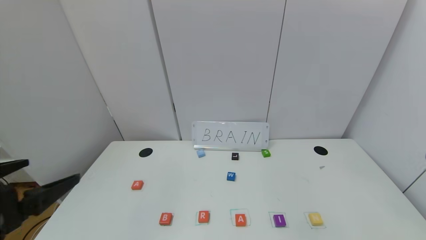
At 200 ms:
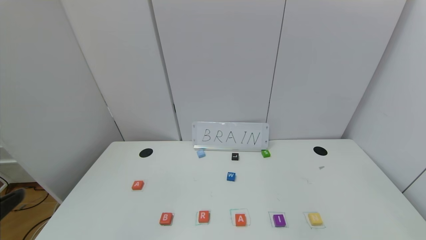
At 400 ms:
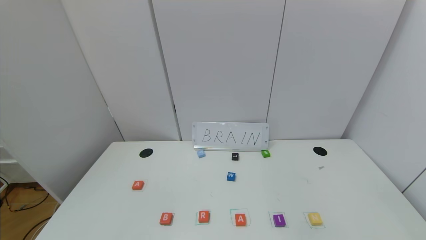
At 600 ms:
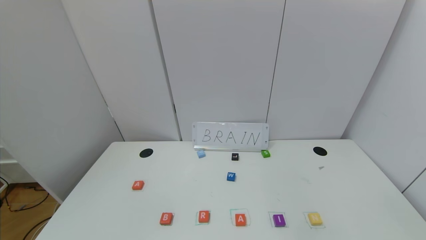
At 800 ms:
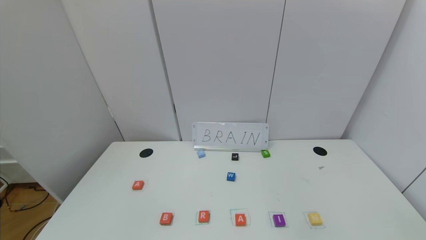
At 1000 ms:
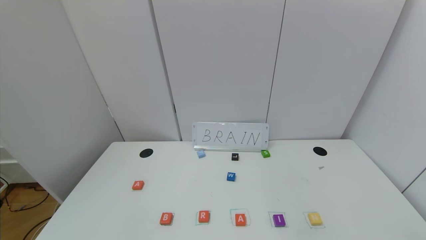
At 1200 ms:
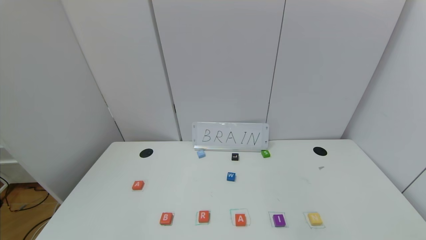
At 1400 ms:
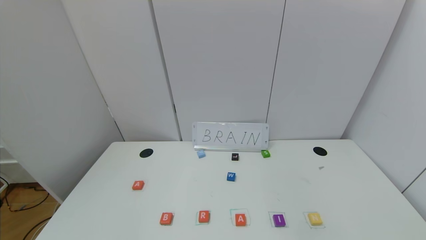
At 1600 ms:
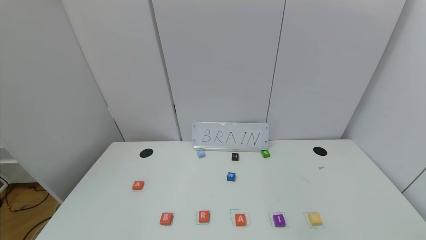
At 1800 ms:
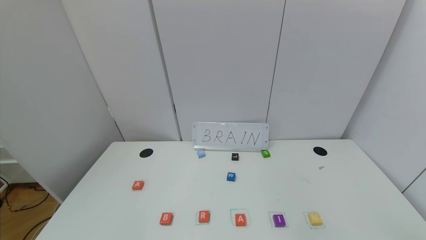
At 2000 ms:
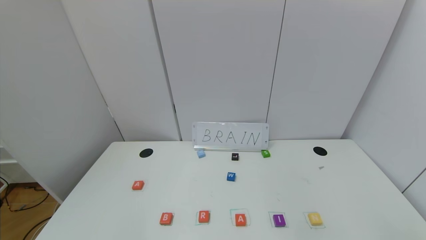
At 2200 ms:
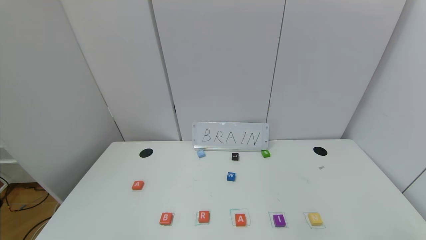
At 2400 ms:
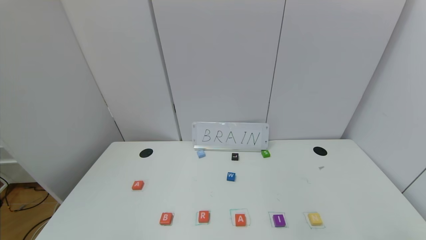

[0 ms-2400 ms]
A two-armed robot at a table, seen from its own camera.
Task of the whole recording: use the gripper to find blocks with the letters b, a, a, and i on the table and arrange them into BAAI, then find r and N and turn the arranged baai into brian.
0 ms to 1200 ms: The left gripper travels backward by approximately 20 cm.

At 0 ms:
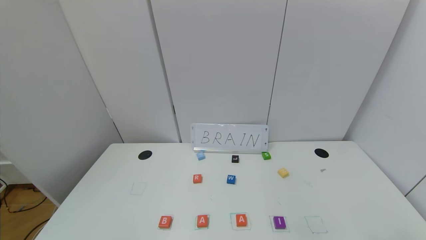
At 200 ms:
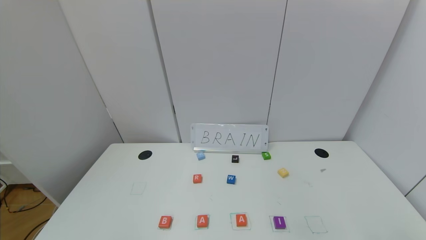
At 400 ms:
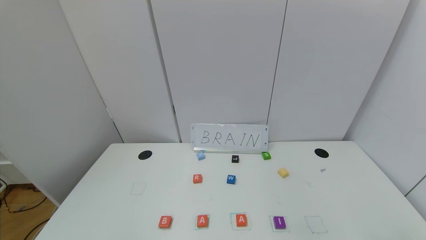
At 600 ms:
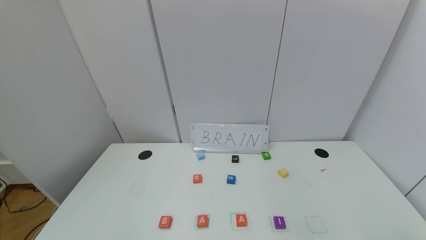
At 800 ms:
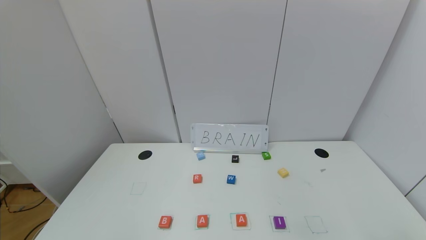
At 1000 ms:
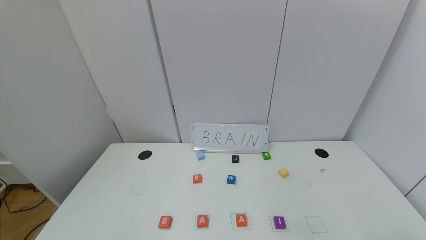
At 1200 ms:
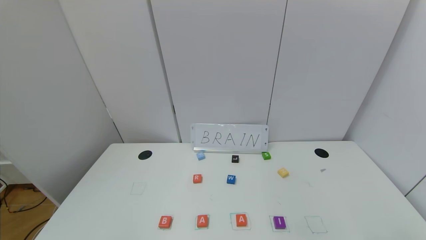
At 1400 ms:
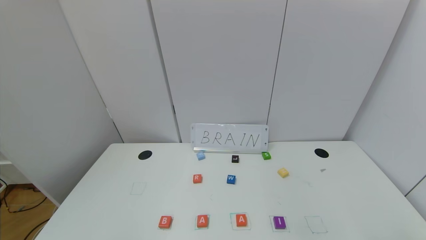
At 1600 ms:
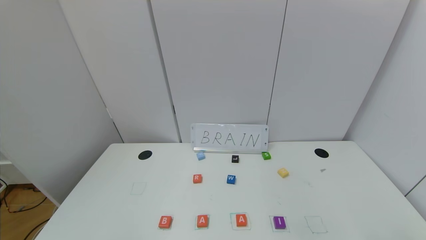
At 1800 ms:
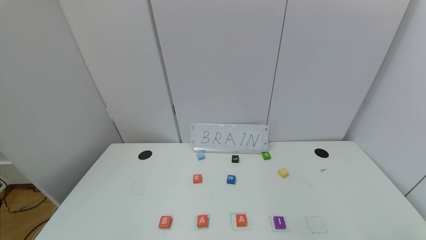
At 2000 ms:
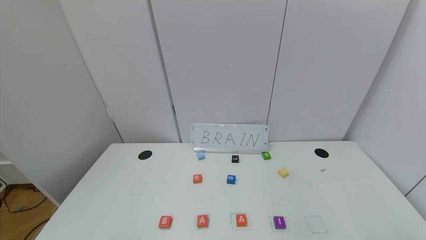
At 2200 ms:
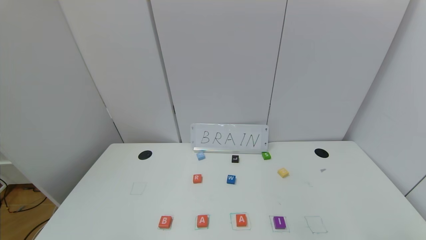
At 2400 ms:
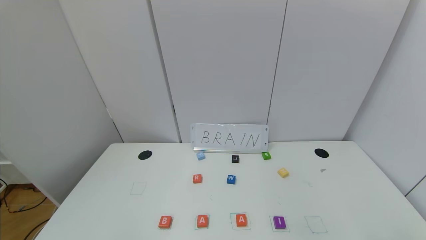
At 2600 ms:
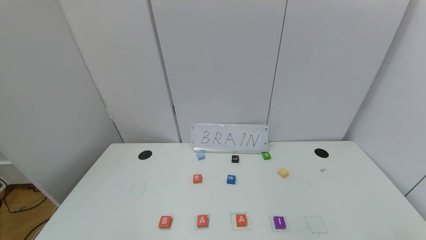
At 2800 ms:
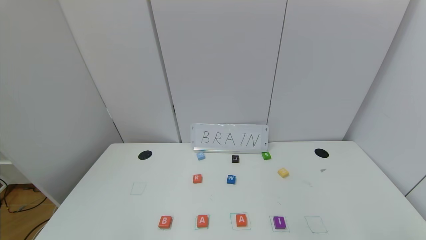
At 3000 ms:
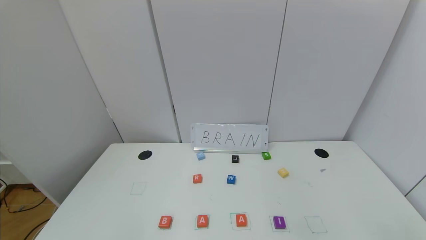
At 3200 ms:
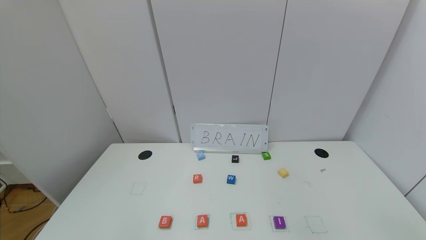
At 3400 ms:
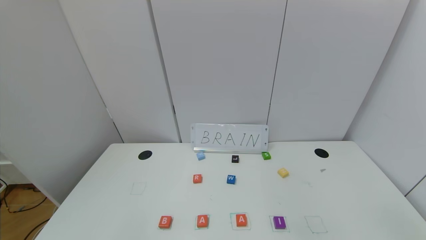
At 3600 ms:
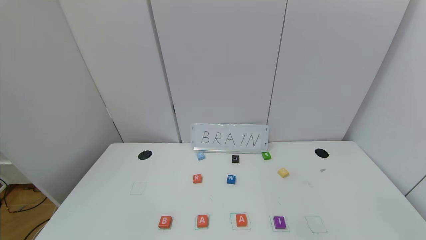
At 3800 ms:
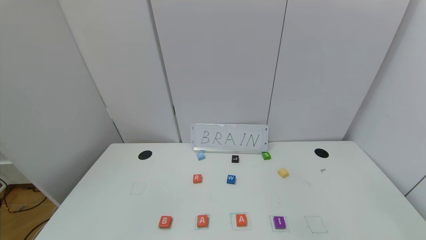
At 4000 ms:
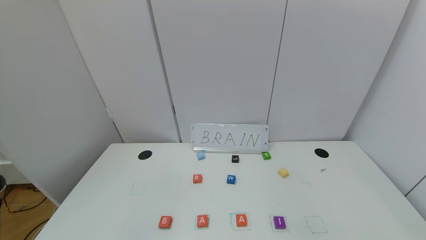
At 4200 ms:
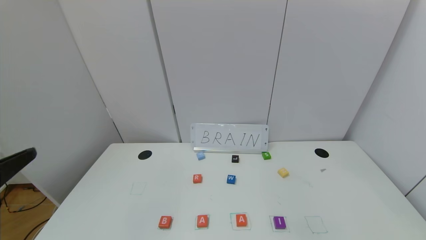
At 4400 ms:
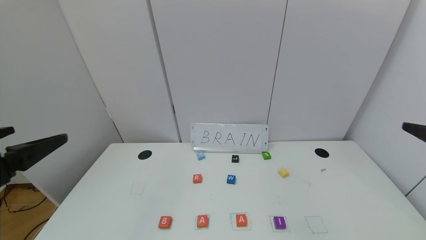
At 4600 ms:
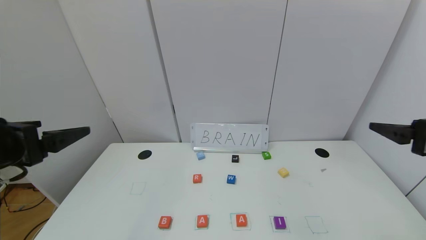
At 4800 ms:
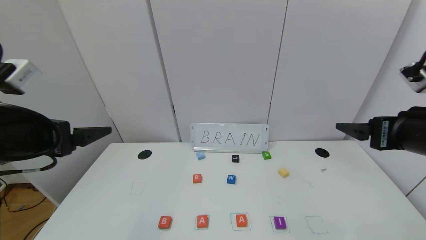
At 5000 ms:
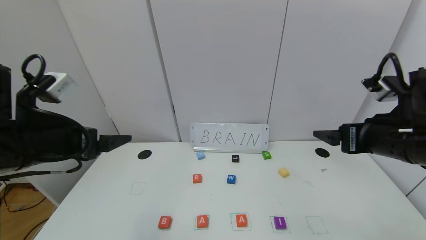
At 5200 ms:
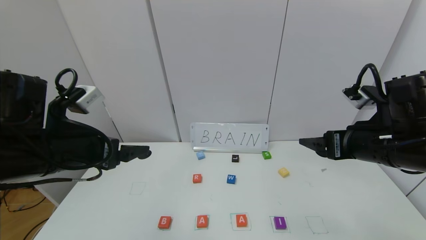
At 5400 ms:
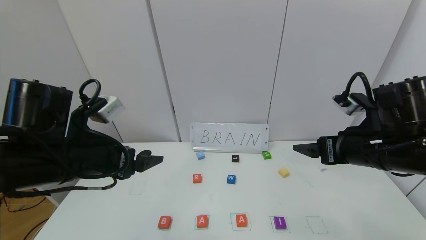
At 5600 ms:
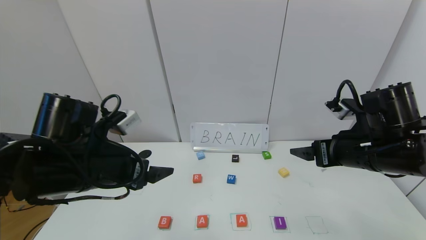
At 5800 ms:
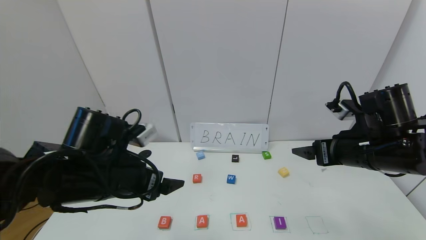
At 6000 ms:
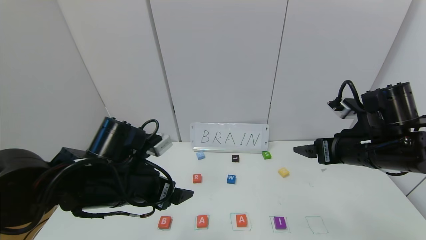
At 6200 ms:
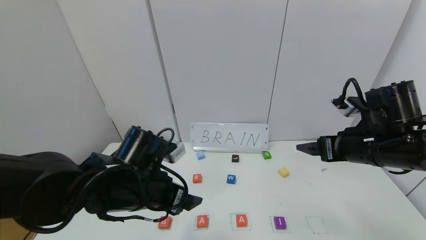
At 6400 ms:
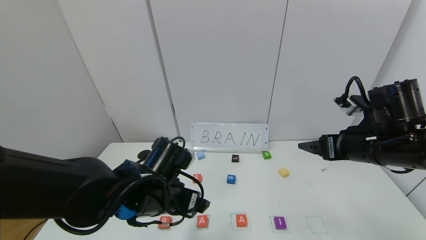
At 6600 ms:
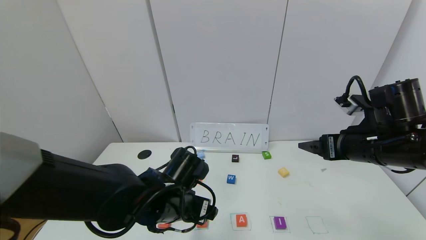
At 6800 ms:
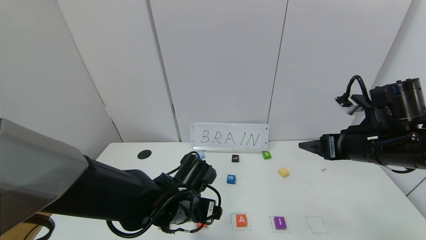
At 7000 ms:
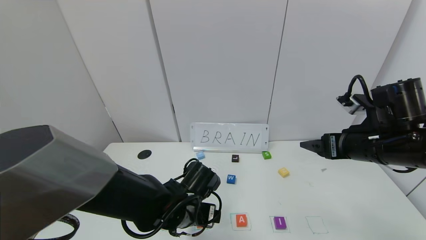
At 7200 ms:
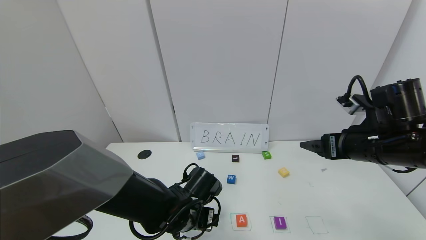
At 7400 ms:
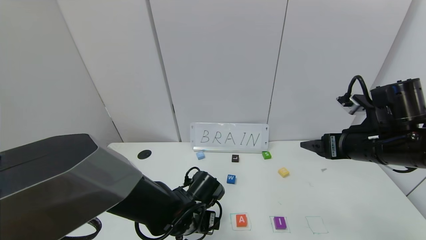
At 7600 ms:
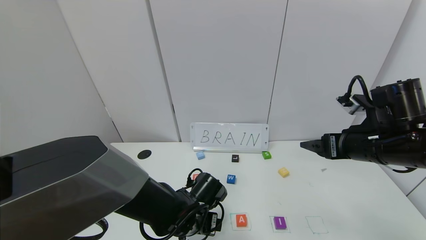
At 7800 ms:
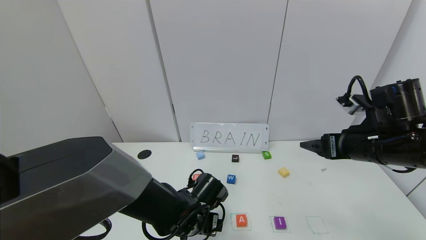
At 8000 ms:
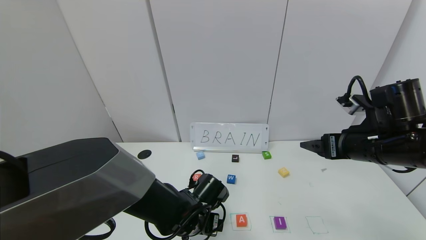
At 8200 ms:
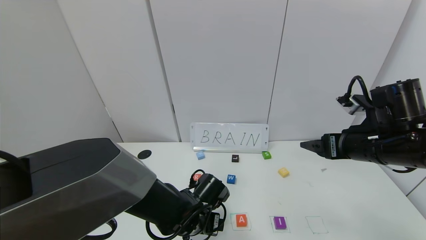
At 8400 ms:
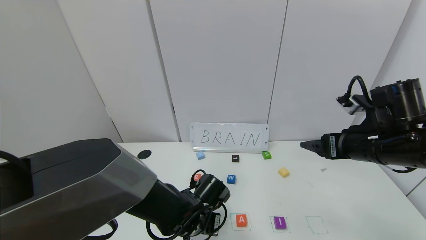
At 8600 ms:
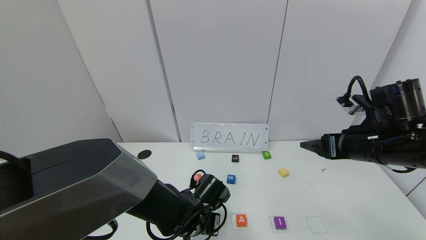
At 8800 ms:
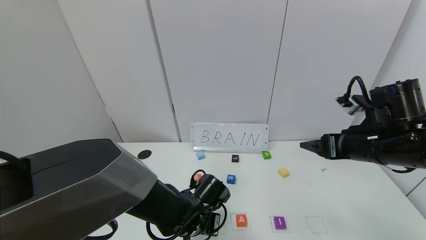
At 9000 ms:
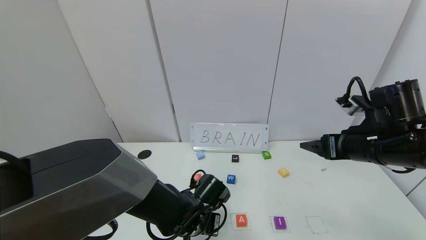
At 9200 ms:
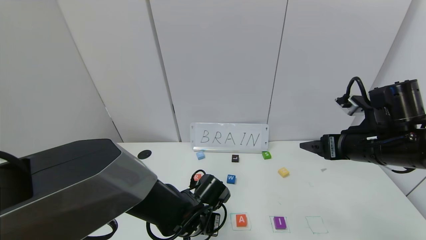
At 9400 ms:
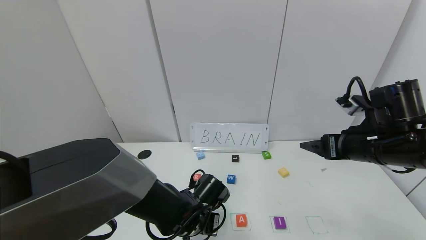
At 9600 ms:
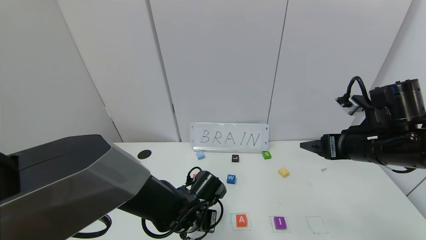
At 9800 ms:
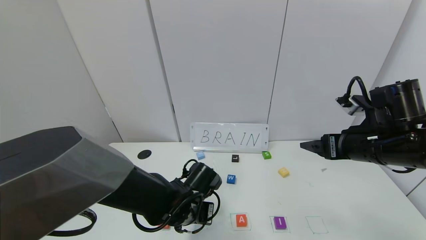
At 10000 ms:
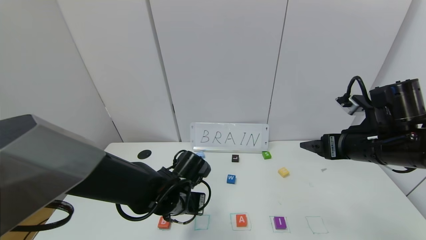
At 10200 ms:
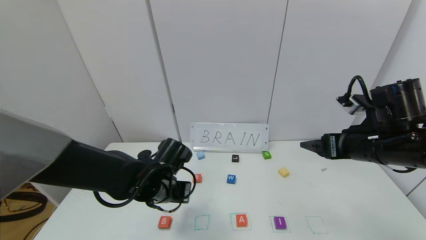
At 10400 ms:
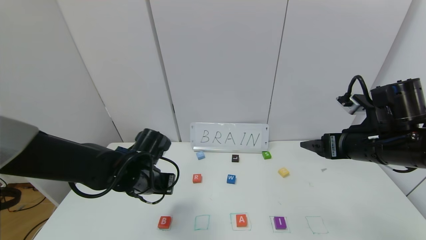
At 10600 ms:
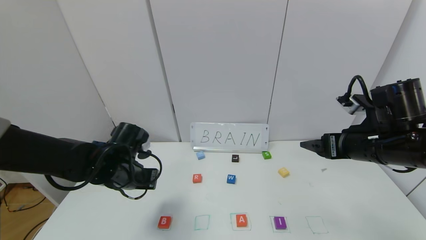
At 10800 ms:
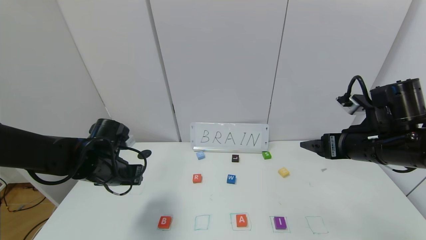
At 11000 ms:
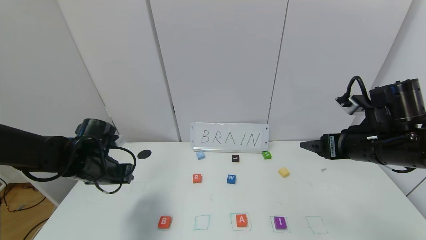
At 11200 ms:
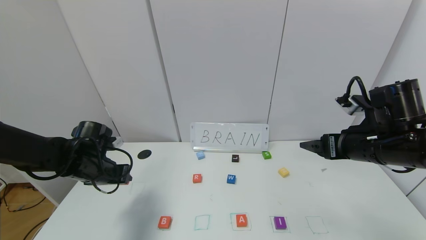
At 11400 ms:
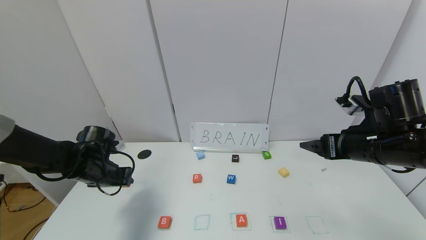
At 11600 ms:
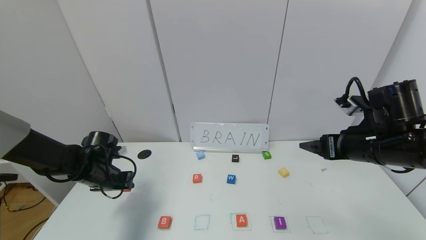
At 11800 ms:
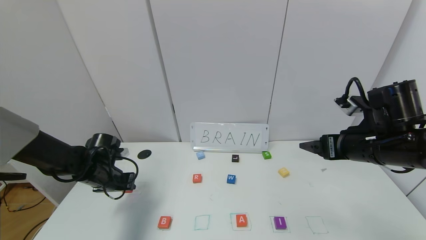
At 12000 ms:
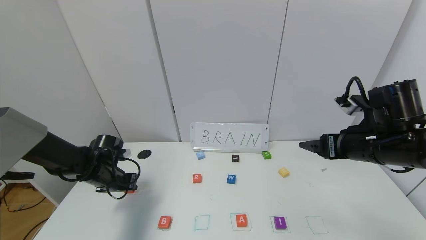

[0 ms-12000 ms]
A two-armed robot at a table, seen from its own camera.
Task of the whole recording: use the gripper to find blocks with the letters b, a, a, and i on the table and arrange them into BAAI, then find r and N and turn the arranged baai into brian.
0 ms to 1600 ms: Both grippers stay put.
3000 ms to 4400 ms: The left gripper shifts roughly 20 cm upward and forward.
4400 ms to 6000 ms: The left gripper shifts approximately 20 cm to the right, forward and downward, while the right gripper travels forward, to the left and downward by approximately 15 cm.
6000 ms to 7600 ms: The left gripper shifts approximately 15 cm downward and to the right.
7600 ms to 9000 ms: The left gripper closes.
9000 ms to 10400 ms: The left gripper shifts some 15 cm to the left and upward.
10400 ms to 12000 ms: The left gripper moves to the left, forward and downward, approximately 15 cm.

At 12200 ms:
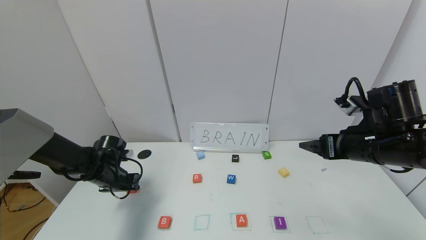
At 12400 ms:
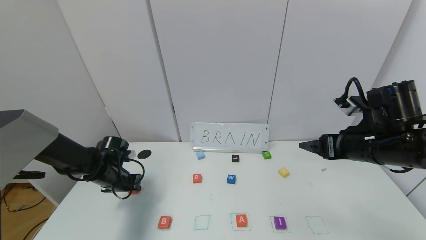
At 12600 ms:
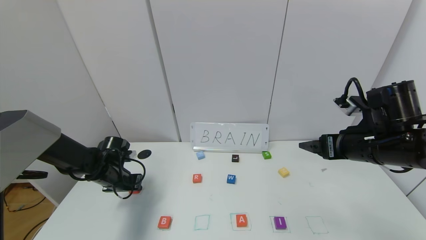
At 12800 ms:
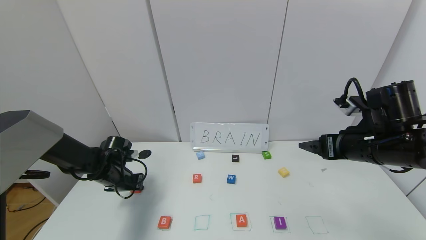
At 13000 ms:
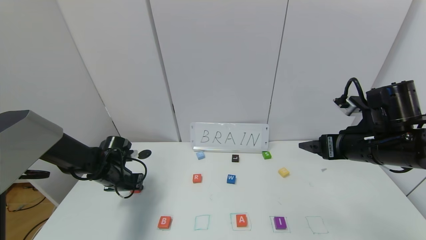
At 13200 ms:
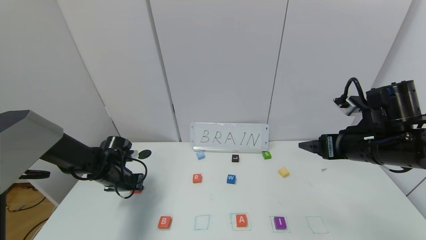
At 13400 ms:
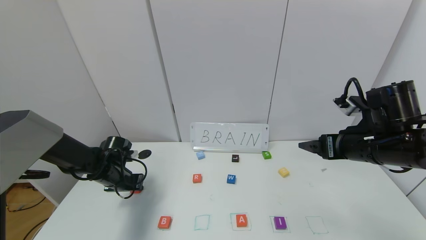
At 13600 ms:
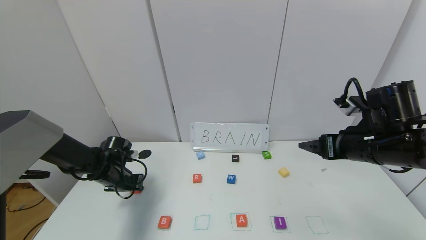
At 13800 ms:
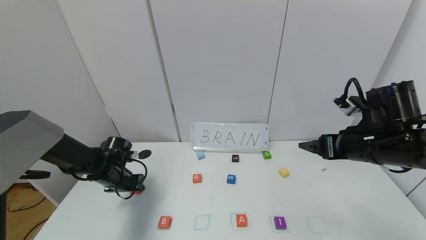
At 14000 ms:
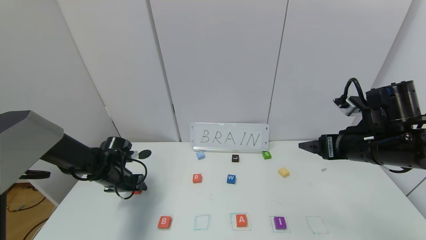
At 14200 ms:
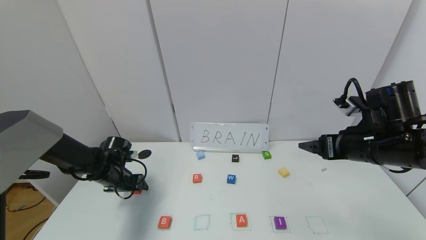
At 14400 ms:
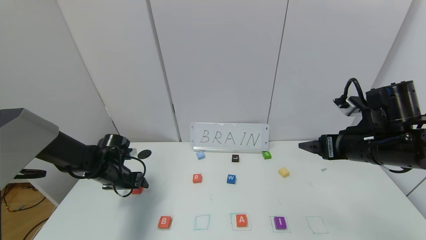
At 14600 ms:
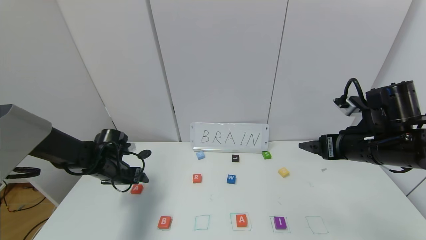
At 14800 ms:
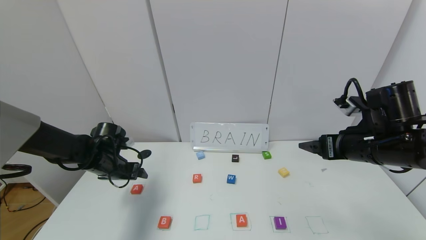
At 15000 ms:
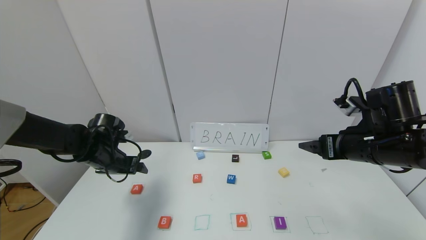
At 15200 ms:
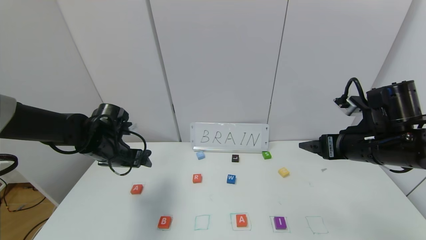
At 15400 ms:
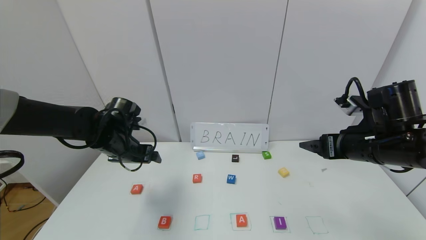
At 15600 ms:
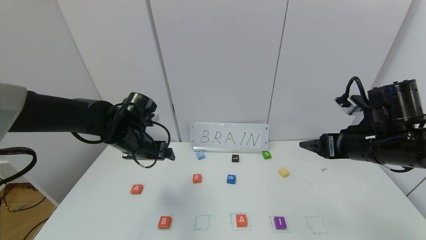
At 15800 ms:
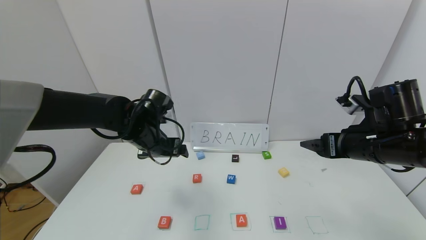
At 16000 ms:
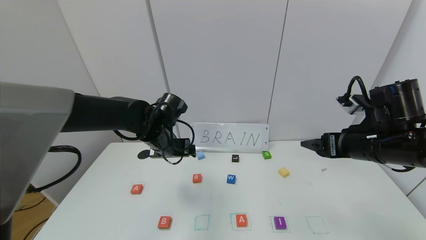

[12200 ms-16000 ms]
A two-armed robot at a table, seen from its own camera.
Task of the whole recording: use the gripper to find blocks with the letters b, a, a, and i on the table and arrange them into BAAI, then find r and N and turn the arranged baai into brian.
12200 ms to 13400 ms: The two grippers keep their place.
13400 ms to 14800 ms: The left gripper travels upward by approximately 5 cm, and opens.
14800 ms to 16000 ms: The left gripper moves to the right and upward, about 20 cm.
